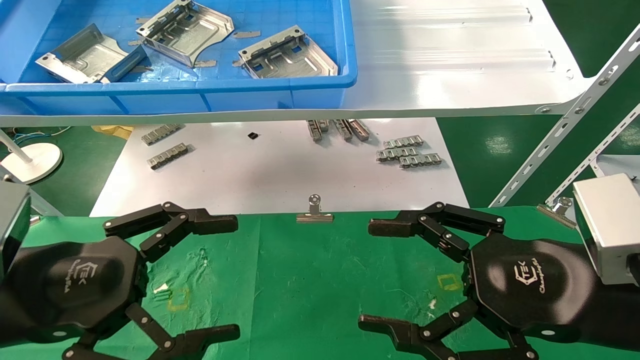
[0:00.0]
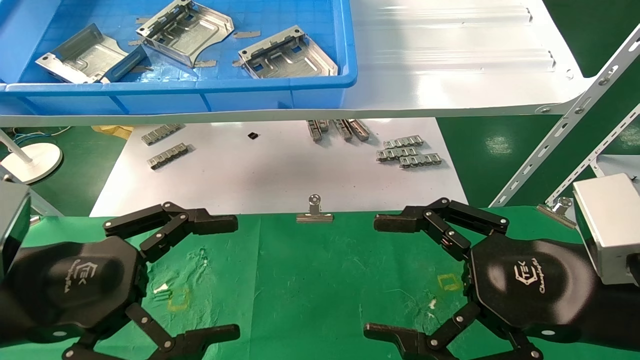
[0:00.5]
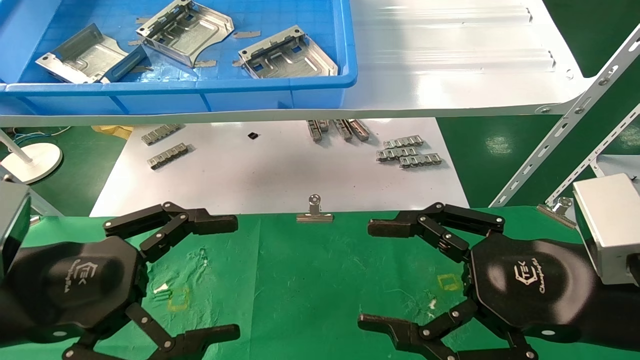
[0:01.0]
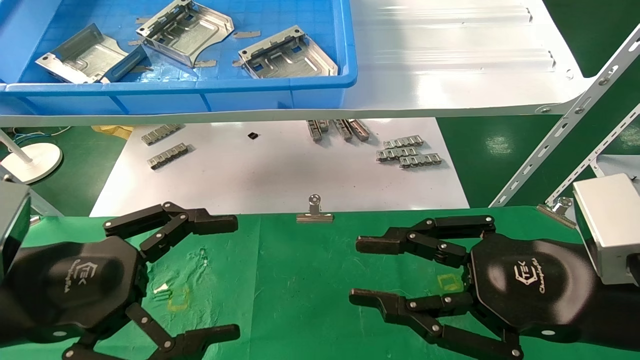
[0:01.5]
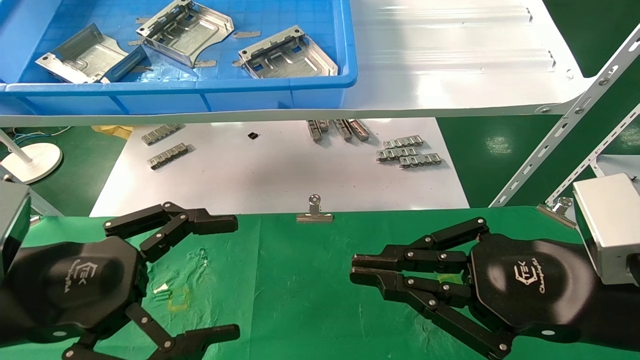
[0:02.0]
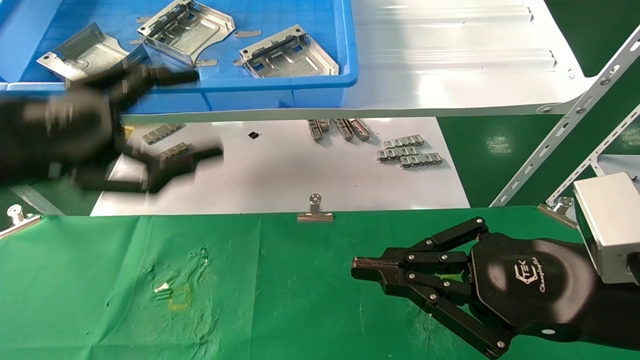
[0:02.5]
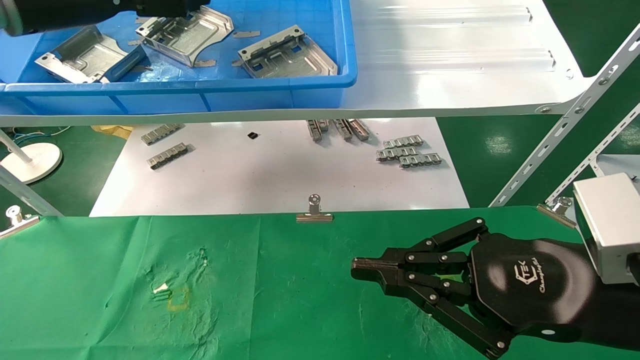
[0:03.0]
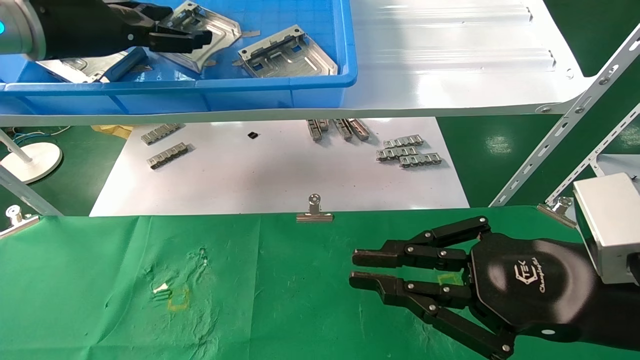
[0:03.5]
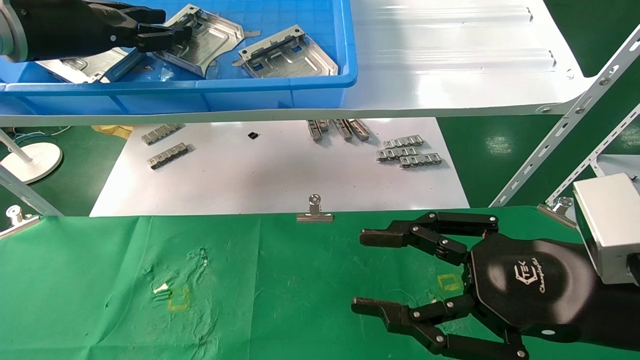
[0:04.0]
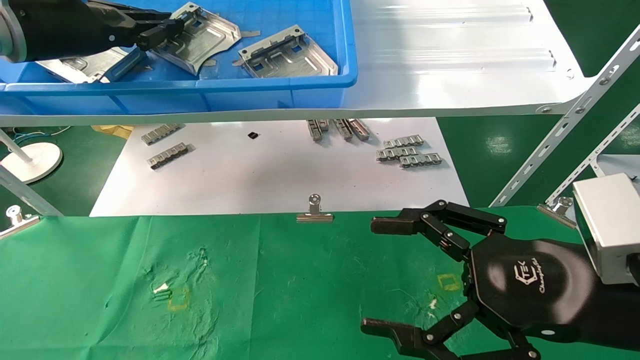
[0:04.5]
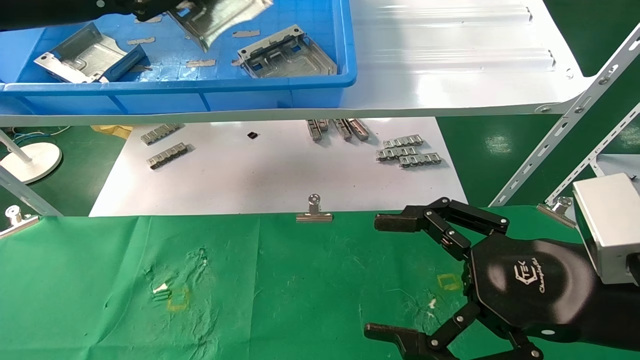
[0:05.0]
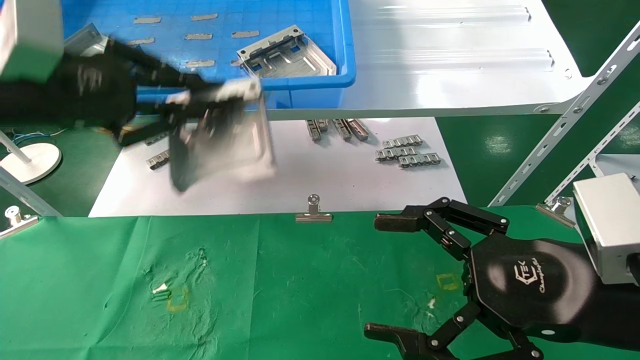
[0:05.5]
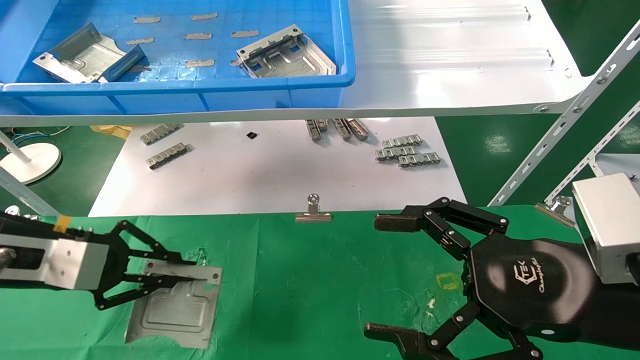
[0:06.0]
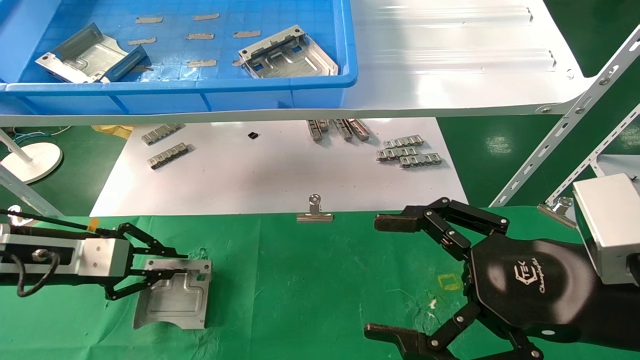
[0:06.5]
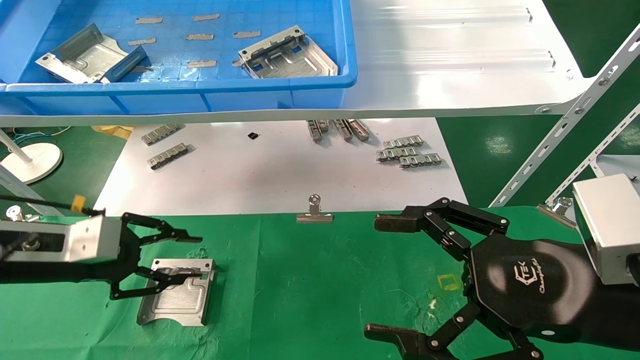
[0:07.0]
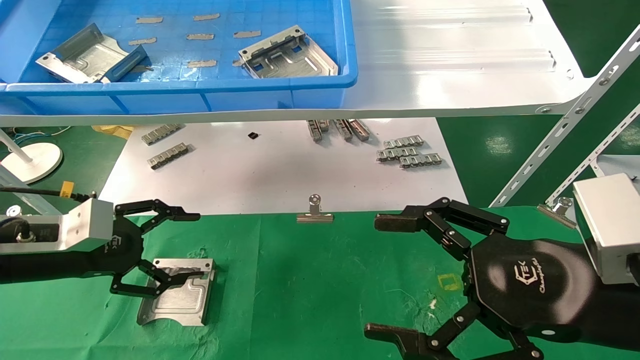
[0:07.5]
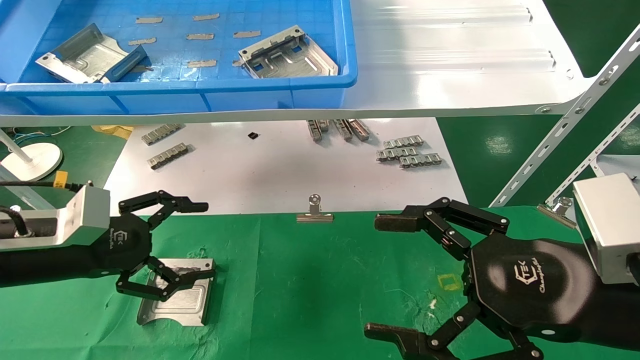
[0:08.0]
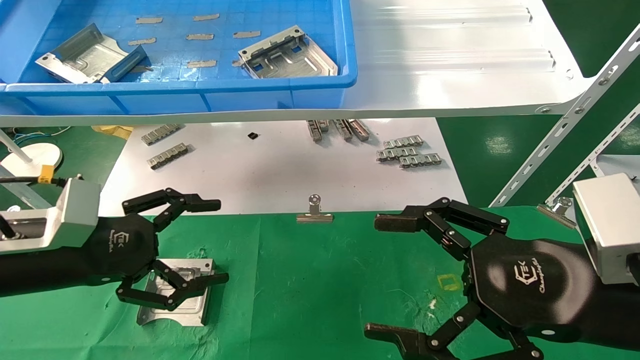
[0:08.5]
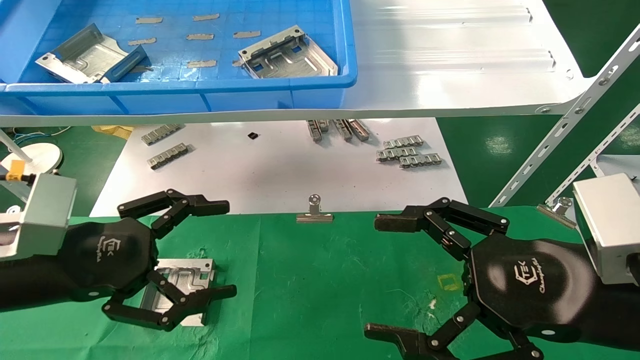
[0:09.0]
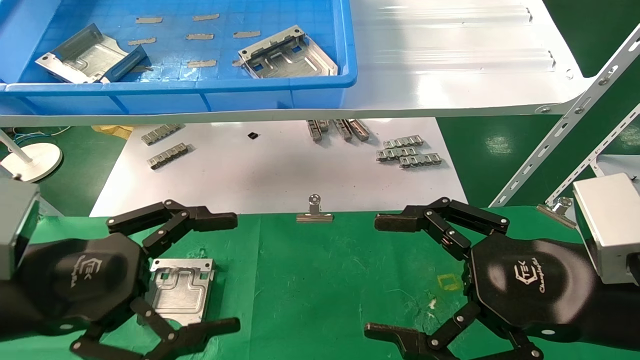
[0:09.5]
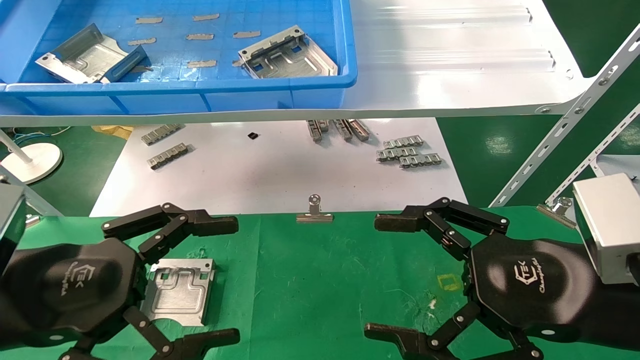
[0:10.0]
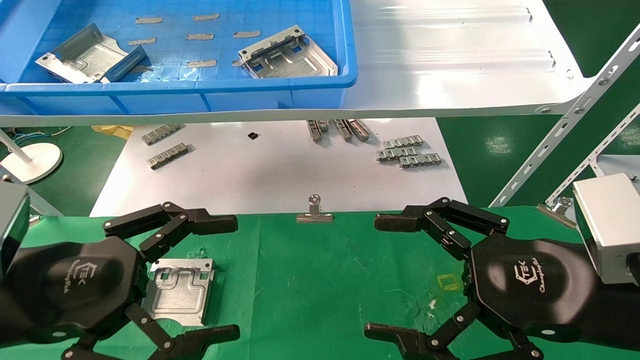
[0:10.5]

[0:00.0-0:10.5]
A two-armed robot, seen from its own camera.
Task of the whole recording: use the mechanical arm to pick up the parts and place them on the table.
Step, 0:02.5 to 0:04.5: Pick up the hard drive bracket from the feeding area.
Step, 0:05.0 to 0:06.5: Place the hard drive bracket into the box.
0:00.0 to 0:02.0: The right gripper closes its fingers.
0:02.0 to 0:04.0: The left gripper travels upward and forward by about 30 cm, and closes its fingers.
0:04.0 to 0:06.5: The left gripper goes approximately 25 cm downward, and closes up; the right gripper opens up.
0:06.5 to 0:08.5: The left gripper heads backward and to the right, covering approximately 10 cm, and opens its fingers.
0:08.5 to 0:10.5: The left gripper moves backward, about 10 cm.

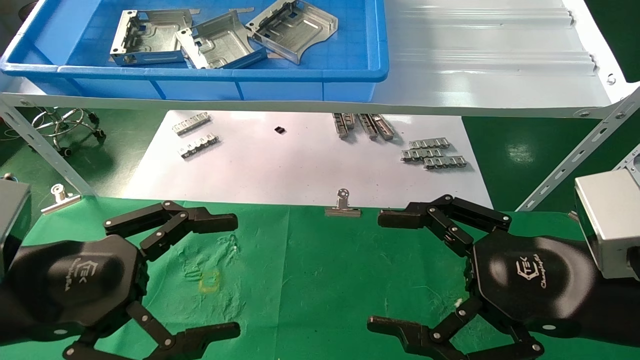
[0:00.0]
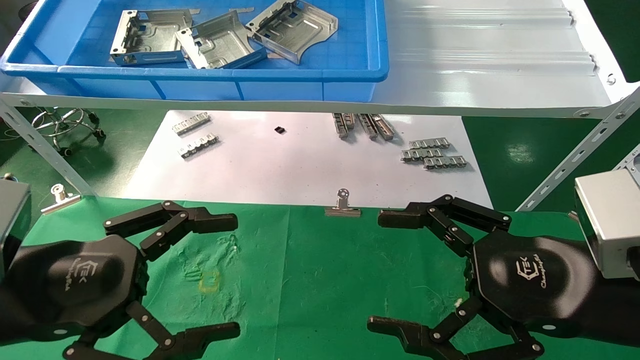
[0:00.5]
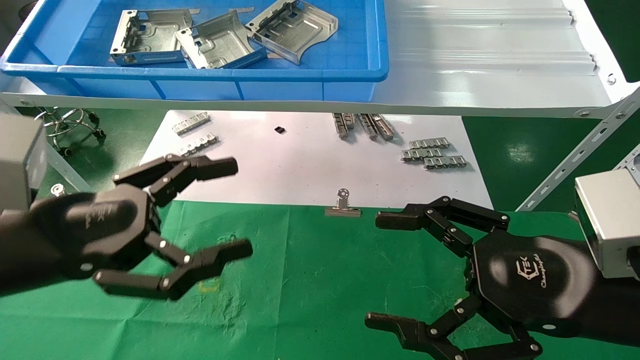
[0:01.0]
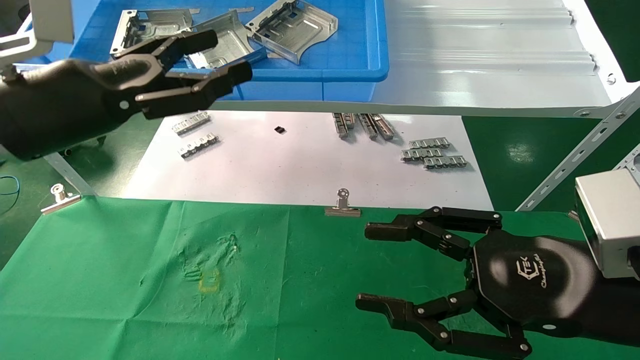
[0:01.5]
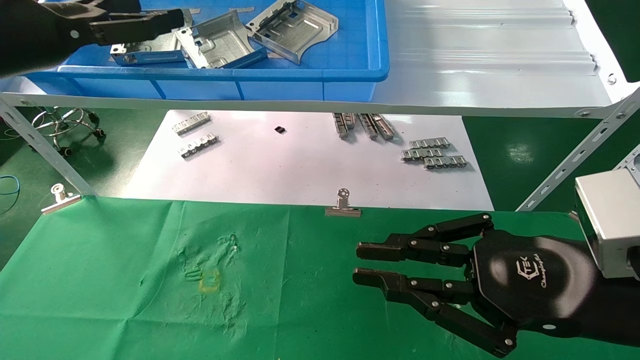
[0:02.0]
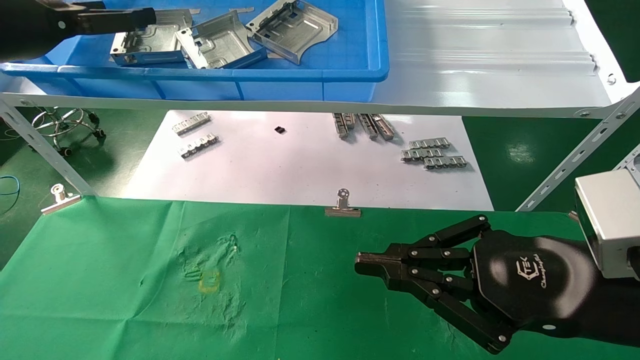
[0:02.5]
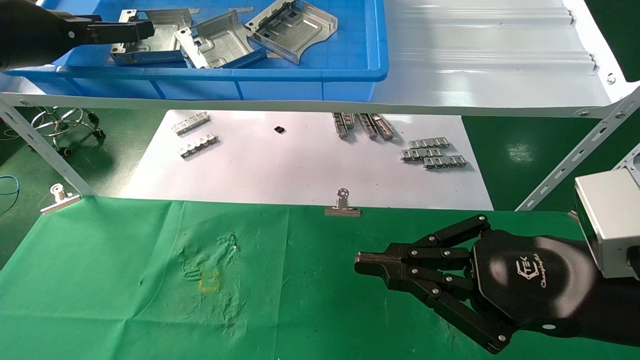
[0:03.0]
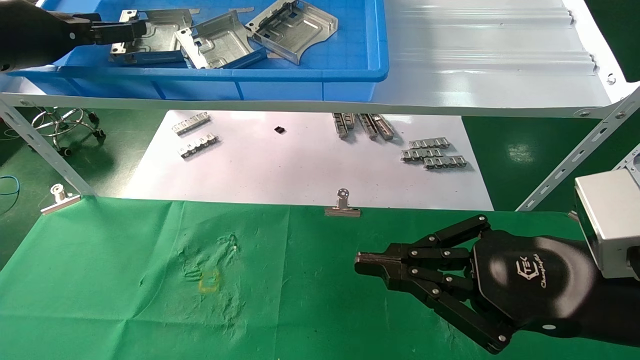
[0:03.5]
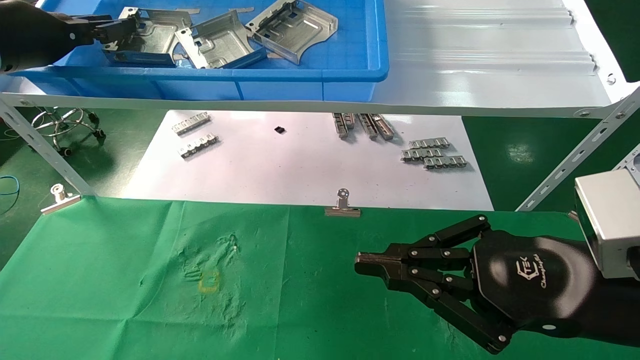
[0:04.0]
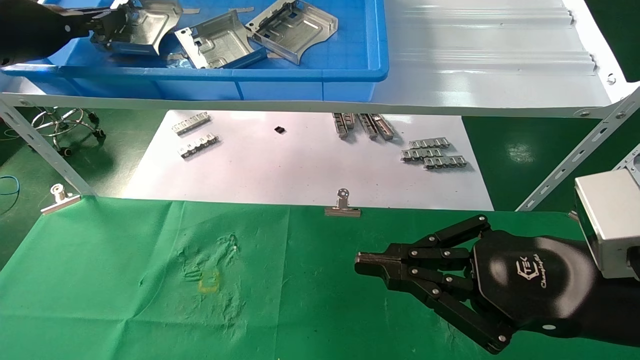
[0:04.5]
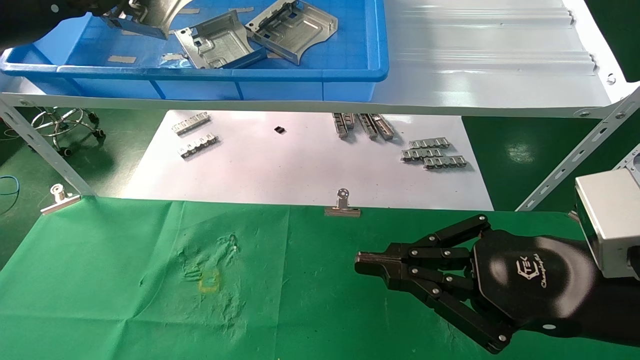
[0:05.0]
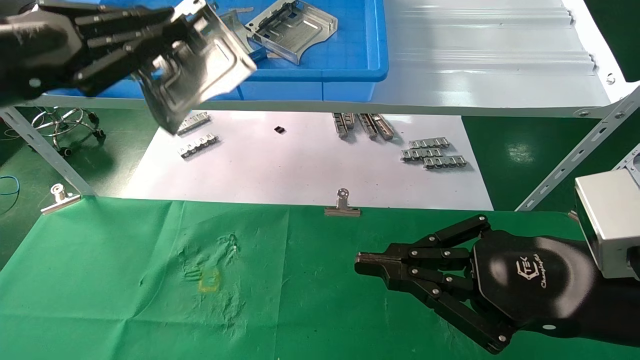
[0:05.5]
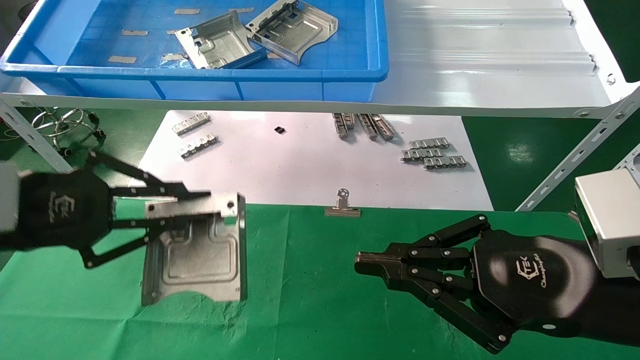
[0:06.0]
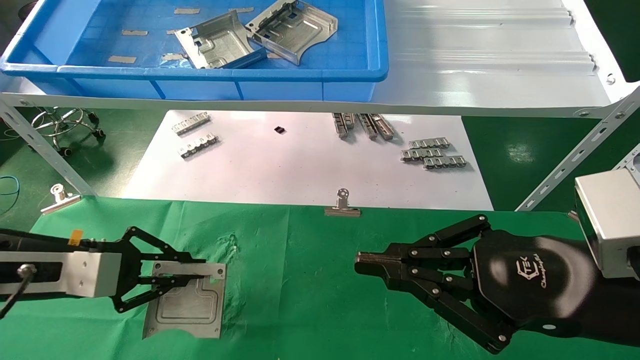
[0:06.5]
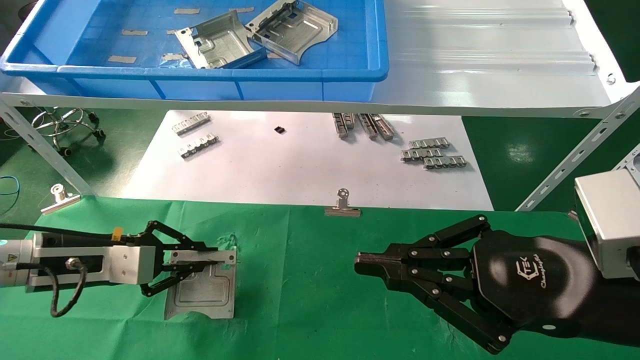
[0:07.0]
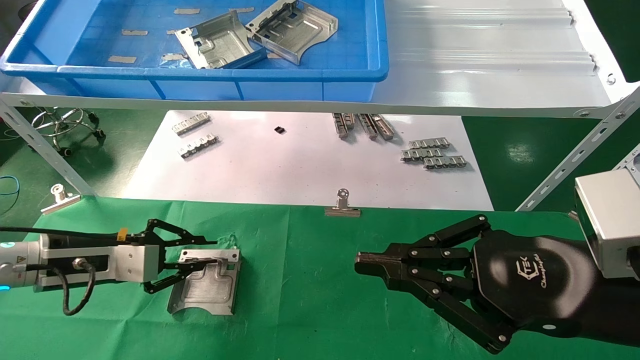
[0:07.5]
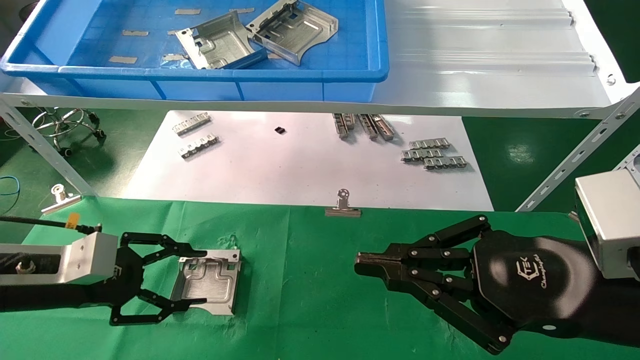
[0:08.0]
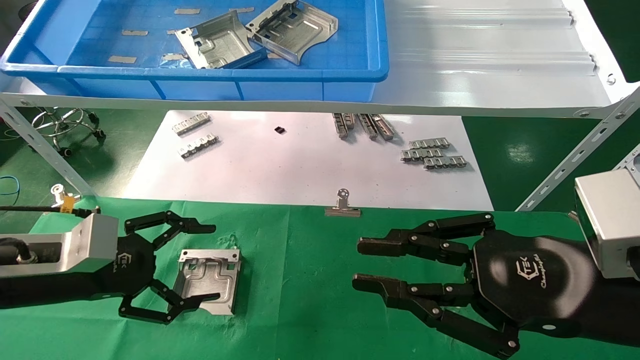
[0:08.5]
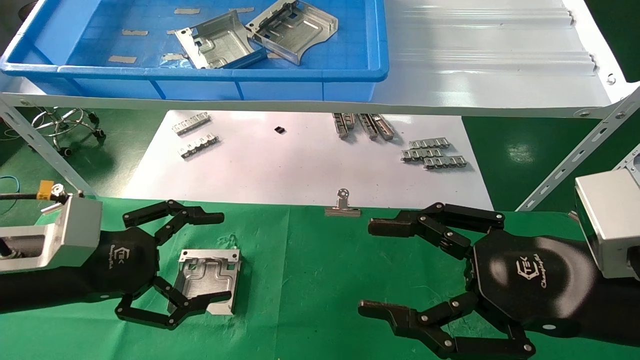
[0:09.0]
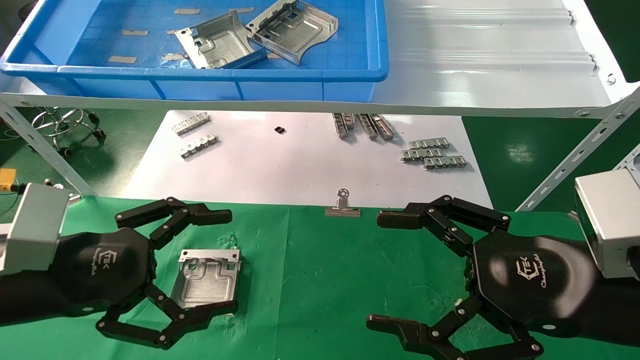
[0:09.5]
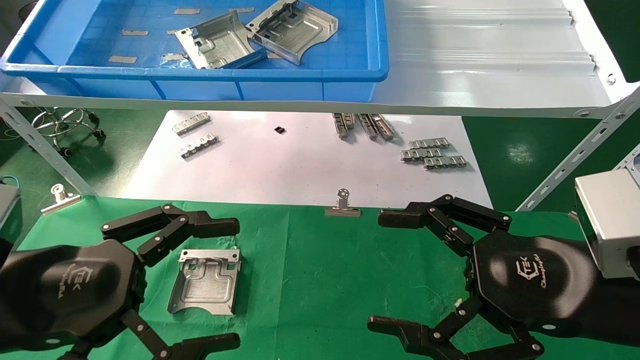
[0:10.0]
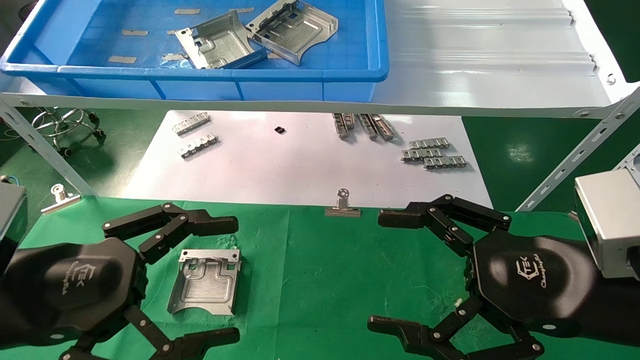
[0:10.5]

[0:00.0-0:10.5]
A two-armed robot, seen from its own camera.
Task of the whole recording: use the mechanical arm to pick up the parts and place them on the table.
Step, 0:01.5 to 0:04.0: Pick up the hard drive bracket from the feeding area.
Step, 0:04.5 to 0:07.5: Place the hard drive bracket into the box.
0:00.0 to 0:02.0: The right gripper closes up. The left gripper travels upward and forward by some 25 cm.
0:02.0 to 0:04.0: The left gripper heads forward, covering about 5 cm, and closes its fingers.
0:04.0 to 0:06.5: The left gripper moves downward, roughly 25 cm, and closes up.
0:06.5 to 0:08.5: The left gripper opens up.
0:08.5 to 0:10.5: The left gripper travels backward by some 10 cm, while the right gripper opens up.
